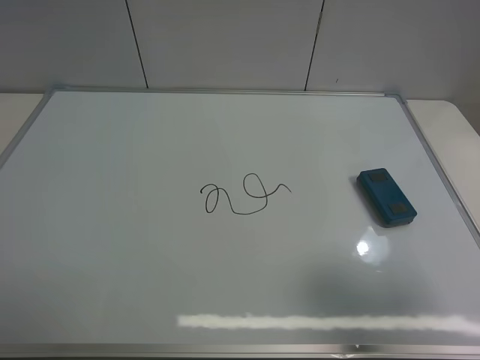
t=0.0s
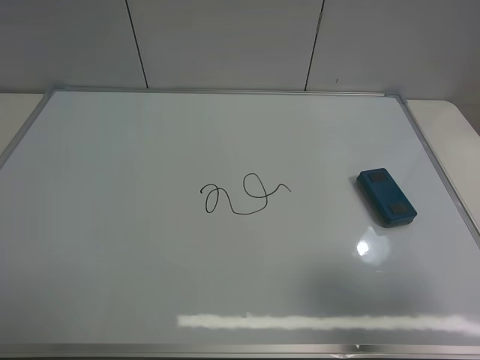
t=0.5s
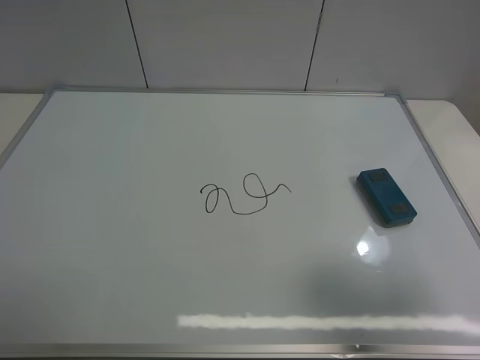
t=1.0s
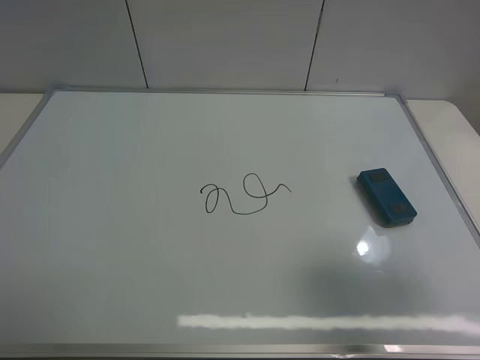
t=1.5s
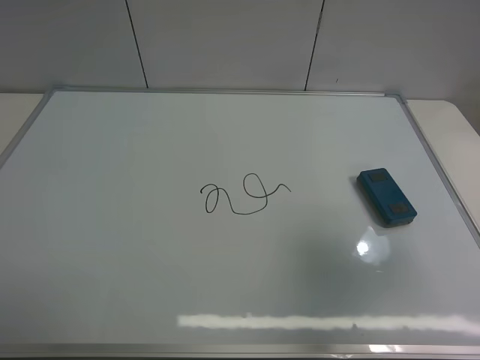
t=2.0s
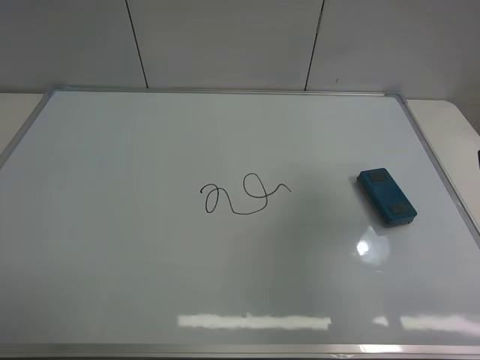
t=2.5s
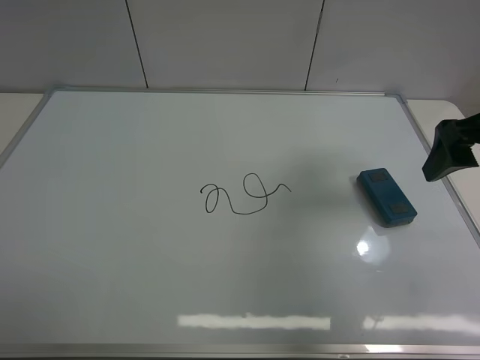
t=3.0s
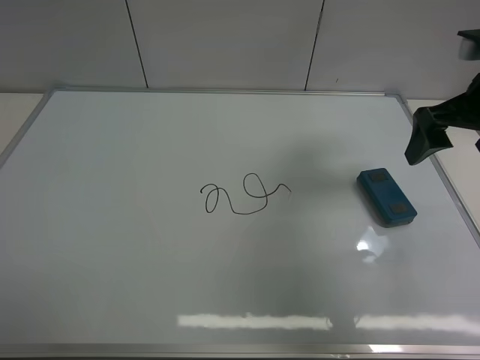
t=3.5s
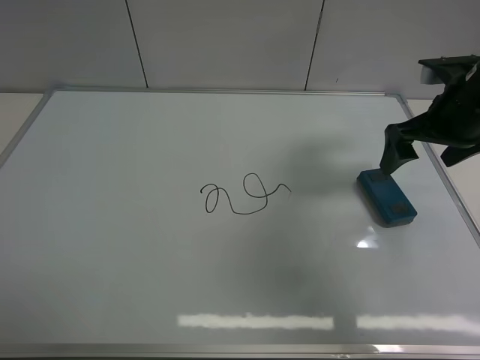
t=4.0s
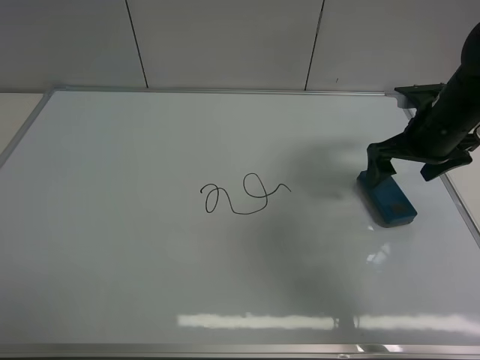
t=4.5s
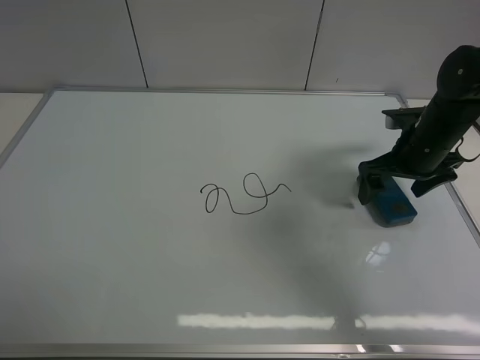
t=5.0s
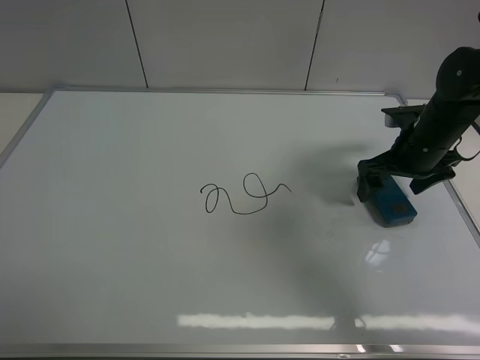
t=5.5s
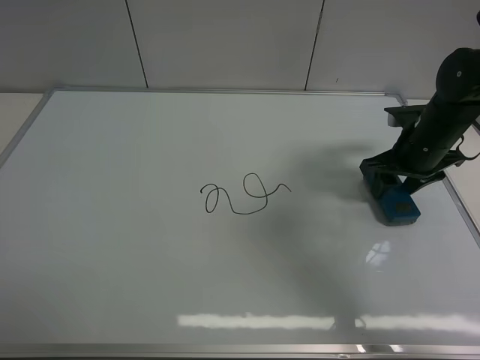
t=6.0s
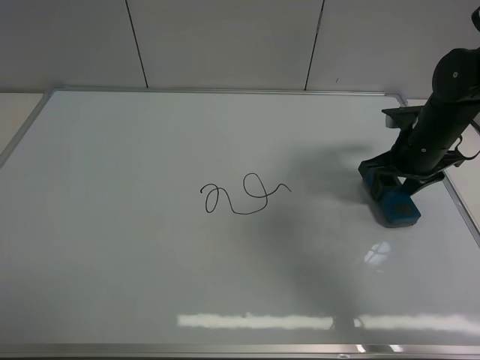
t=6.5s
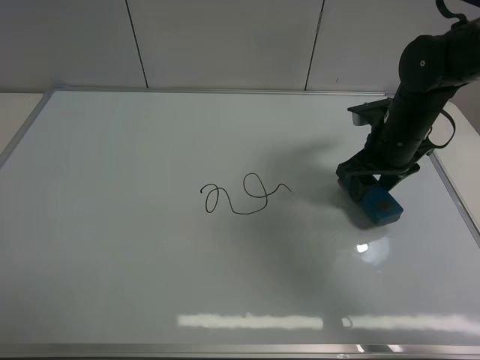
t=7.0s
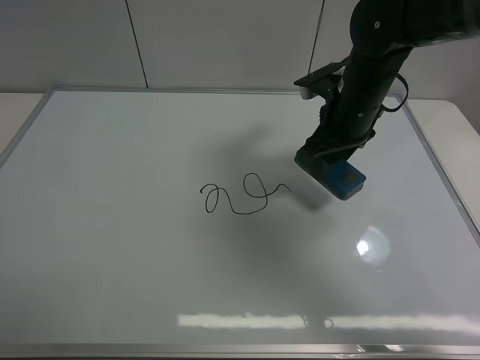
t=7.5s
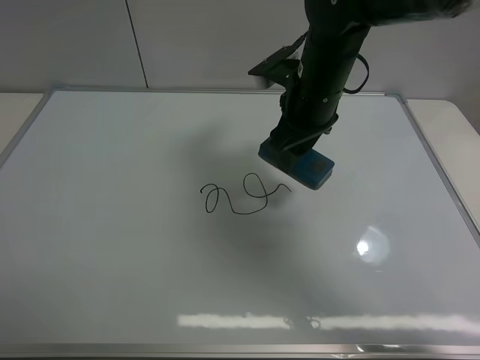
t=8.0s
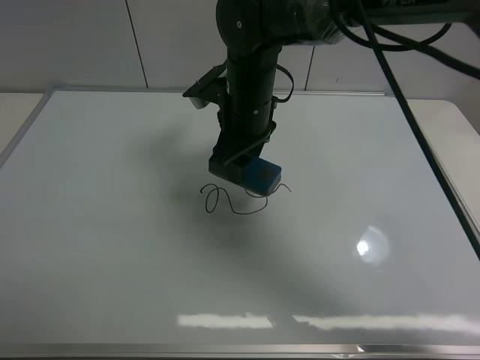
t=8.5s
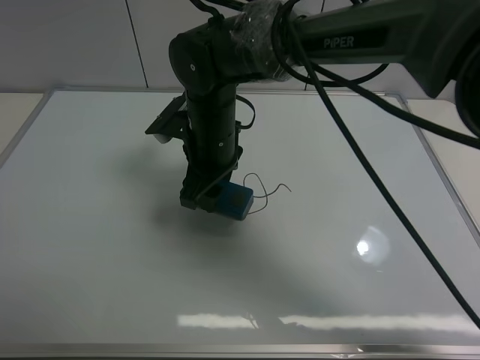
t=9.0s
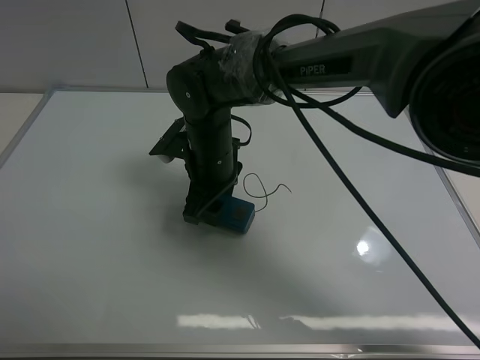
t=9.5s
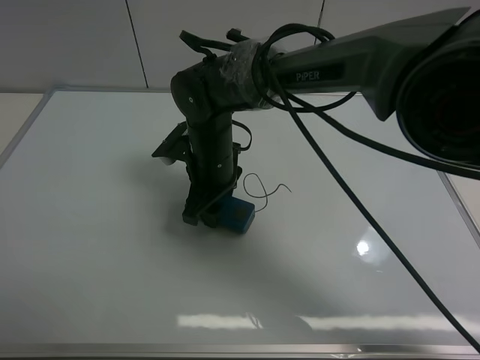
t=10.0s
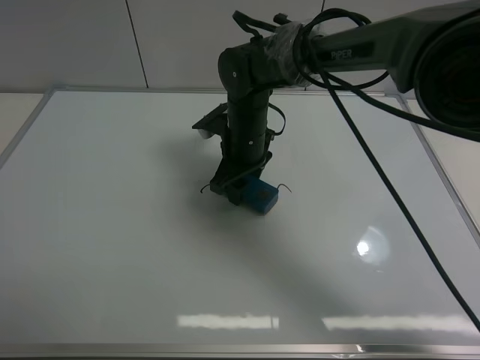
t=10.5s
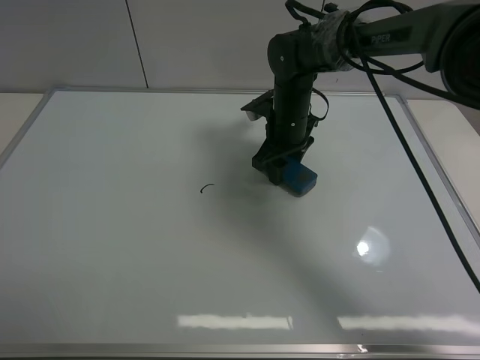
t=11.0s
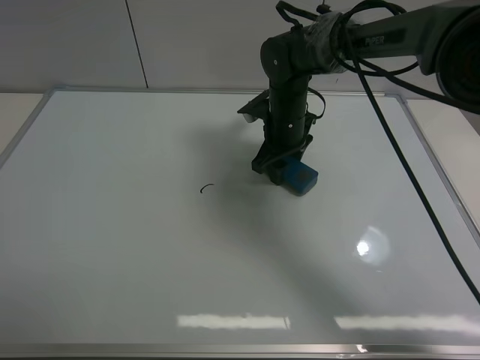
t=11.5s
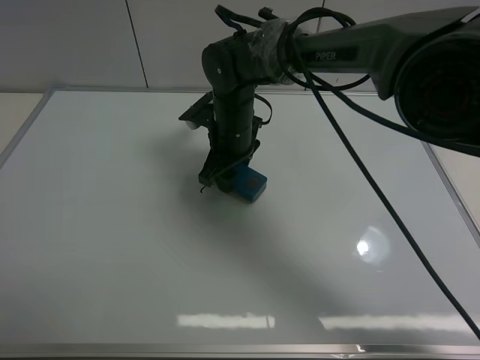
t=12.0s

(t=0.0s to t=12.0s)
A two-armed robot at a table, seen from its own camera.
Task of the whole recording: use the right gripper to pick up the board eraser, wipe the notes on the whiteboard clean, and then put them back in place.
Step, t=0.0s - t=7.0s: Pick up the board eraser with right gripper.
t=0.0s - t=2.0s: The right gripper moves forward, about 5 cm.
t=2.0s - t=4.0s: The right gripper heads forward and downward, covering approximately 25 cm.
t=4.0s - t=6.0s: The right gripper heads downward, covering approximately 10 cm, and closes up.
t=6.0s - t=8.0s: The right gripper heads to the left, covering some 20 cm.
t=8.0s - t=10.0s: The right gripper is displaced to the left and downward by some 15 cm.
t=10.0s - t=12.0s: The right gripper reaches about 10 cm to the right, then returns.

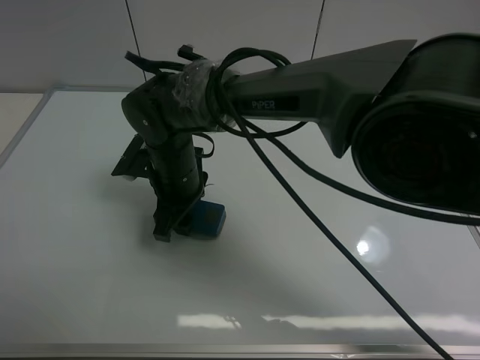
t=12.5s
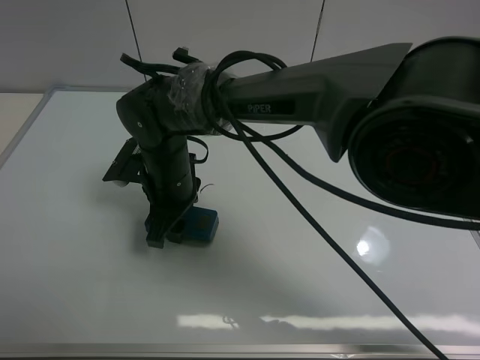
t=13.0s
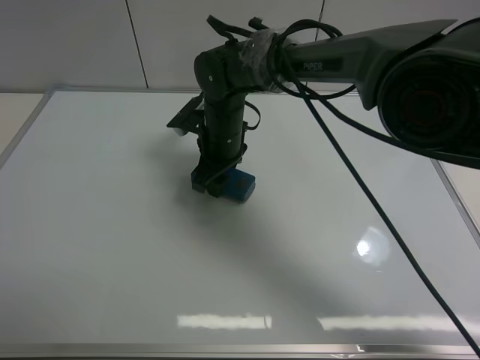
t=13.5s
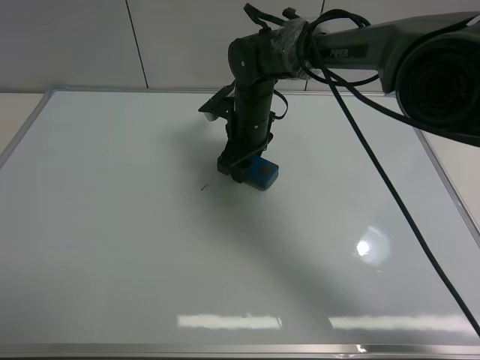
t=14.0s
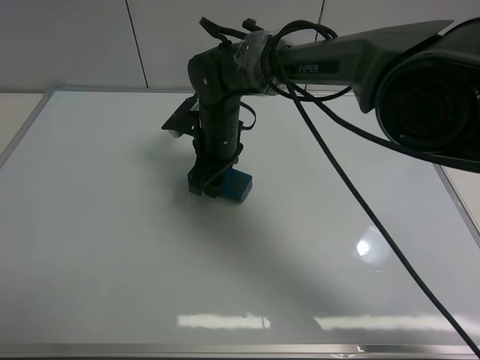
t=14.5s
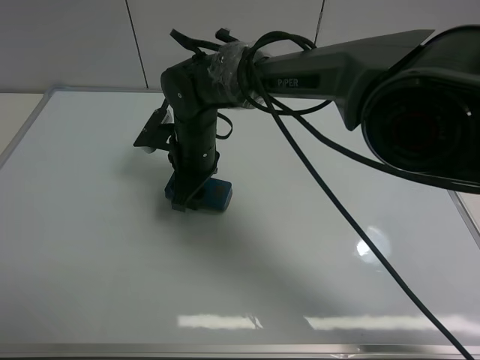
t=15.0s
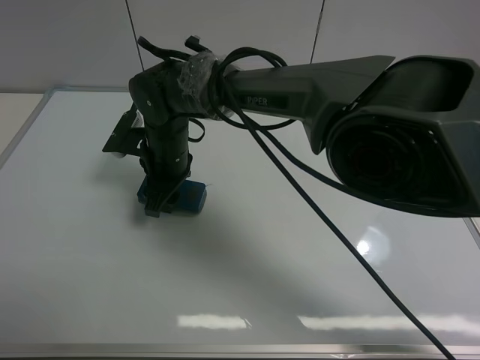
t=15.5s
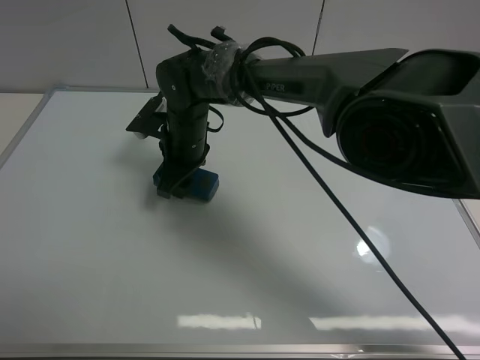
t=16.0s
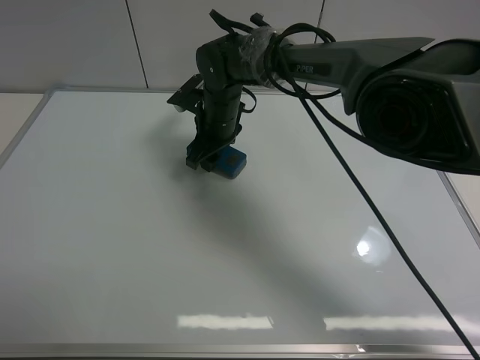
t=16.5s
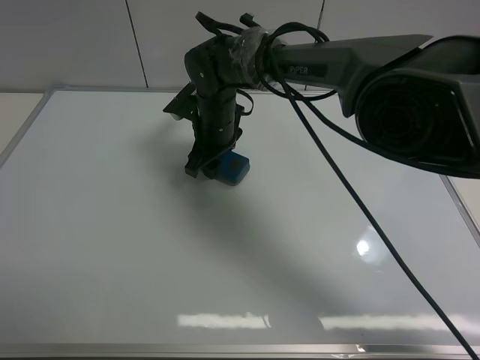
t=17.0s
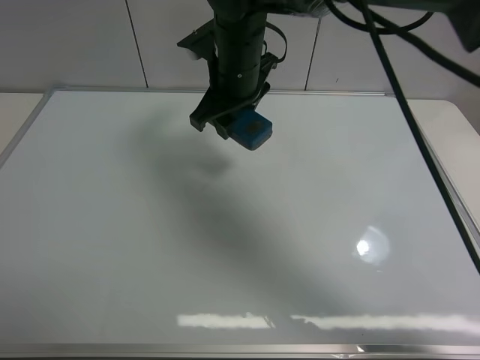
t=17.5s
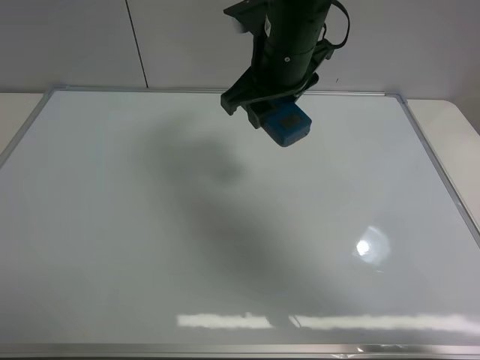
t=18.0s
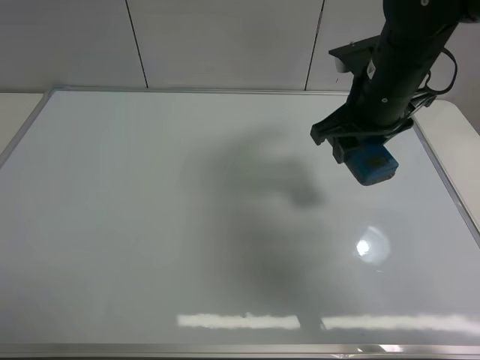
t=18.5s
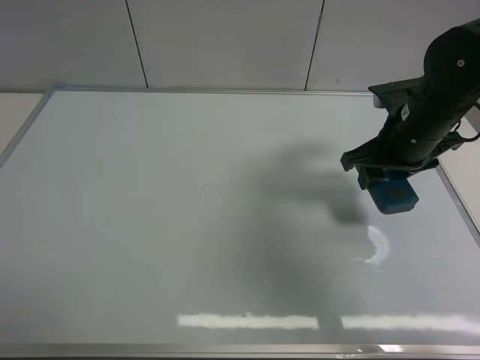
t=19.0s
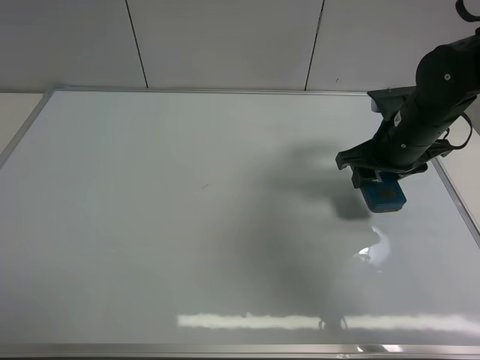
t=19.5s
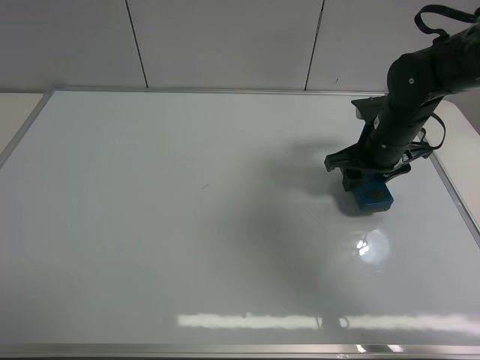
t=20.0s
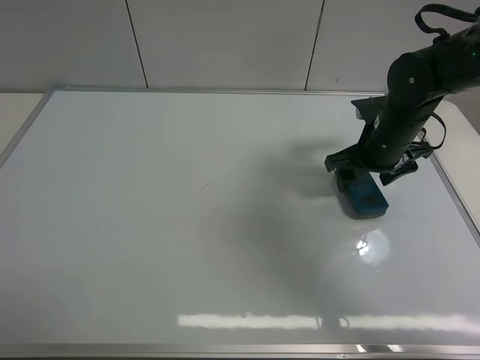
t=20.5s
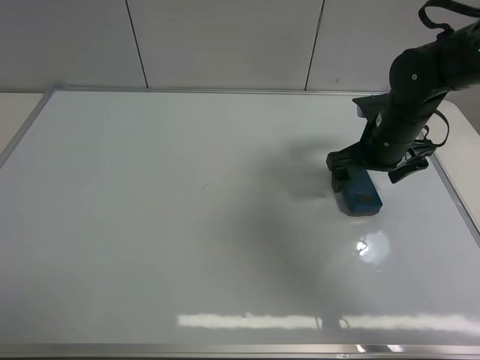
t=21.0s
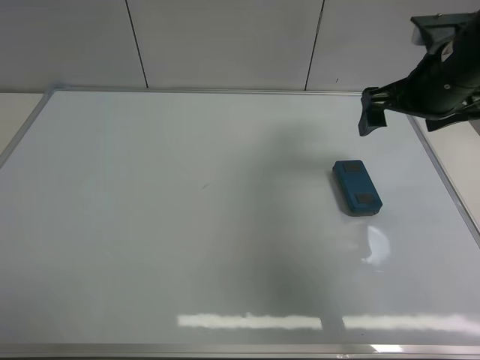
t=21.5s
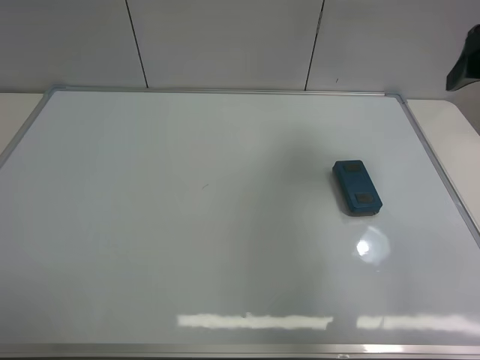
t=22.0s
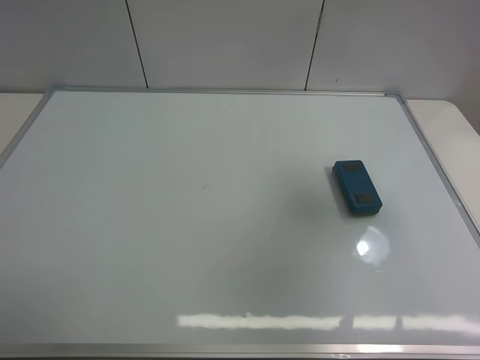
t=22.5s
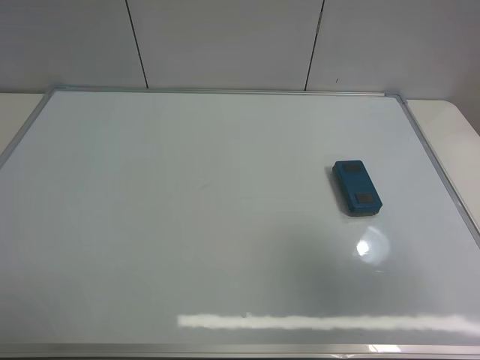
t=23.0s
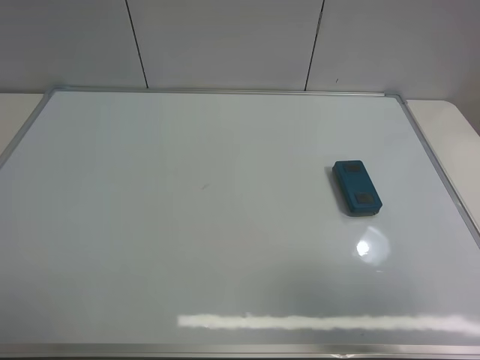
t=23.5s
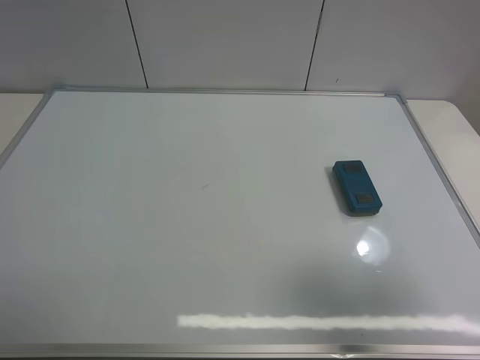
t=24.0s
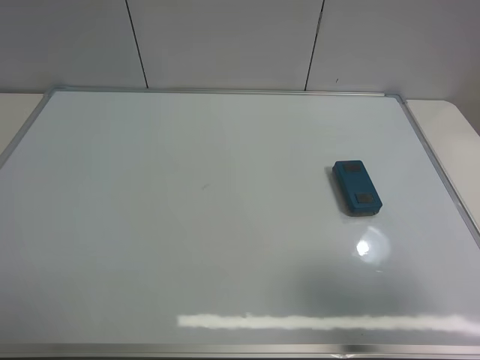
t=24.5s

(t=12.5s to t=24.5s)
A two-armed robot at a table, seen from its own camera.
Task of the whole recording: use the right gripper to pick up the board eraser, wipe the notes on the whiteboard clean, and then put them back in place.
Step, t=12.5s - t=17.0s: Wipe off the writing on the board with right gripper.
Step, t=17.5s - t=20.5s: Move the board eraser to the right of the whiteboard with right gripper.
t=12.5s - t=14.5s: The right gripper travels forward and to the right by about 10 cm.
t=16.5s - t=18.5s: The right gripper shifts roughly 25 cm to the right, upward and backward.
t=18.5s - t=20.5s: The right gripper heads downward and to the right, covering some 10 cm, and opens its fingers.
t=20.5s - t=22.5s: The right gripper is displaced upward, backward and to the right by some 35 cm, and opens.
t=22.5s - t=24.5s: The right gripper shifts approximately 15 cm downward and backward.
